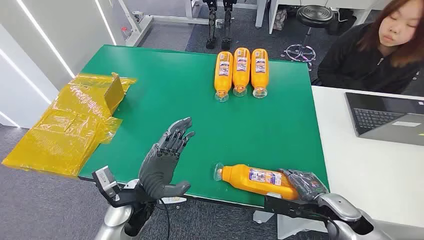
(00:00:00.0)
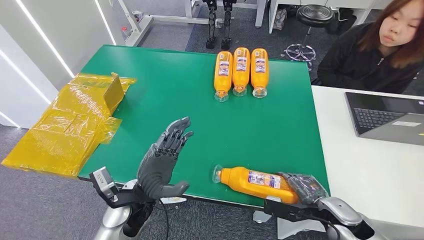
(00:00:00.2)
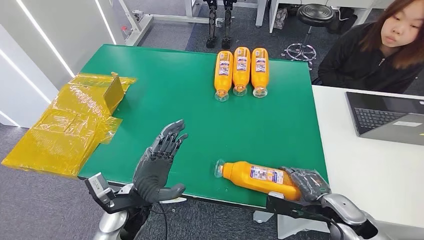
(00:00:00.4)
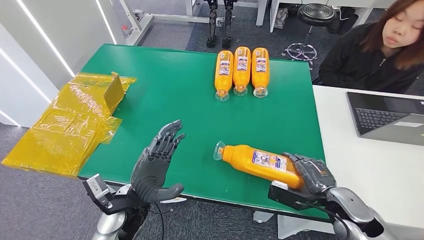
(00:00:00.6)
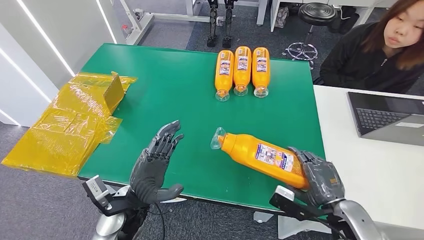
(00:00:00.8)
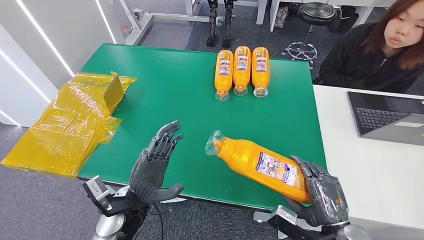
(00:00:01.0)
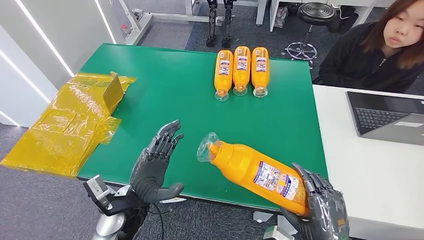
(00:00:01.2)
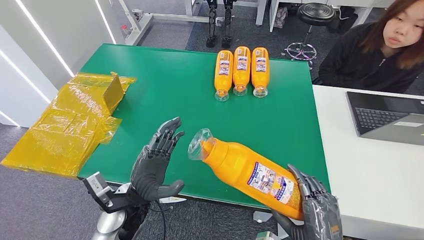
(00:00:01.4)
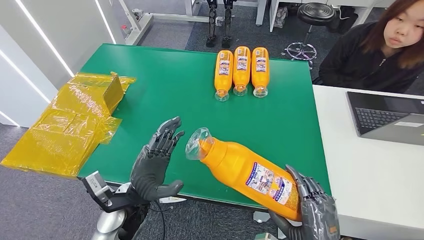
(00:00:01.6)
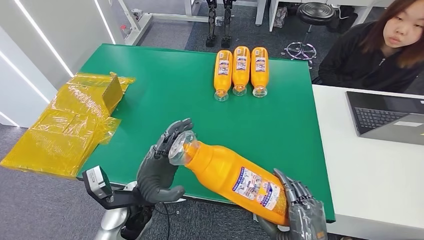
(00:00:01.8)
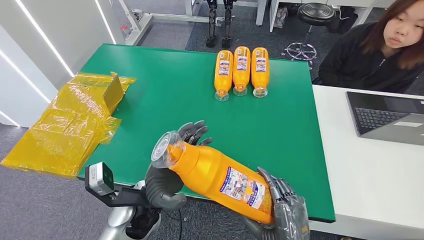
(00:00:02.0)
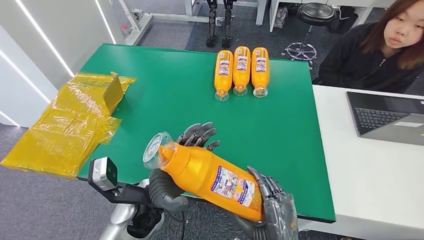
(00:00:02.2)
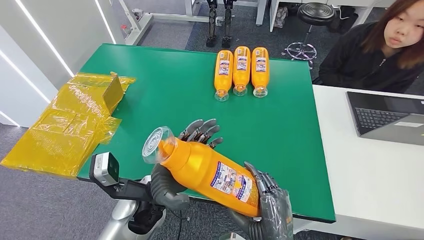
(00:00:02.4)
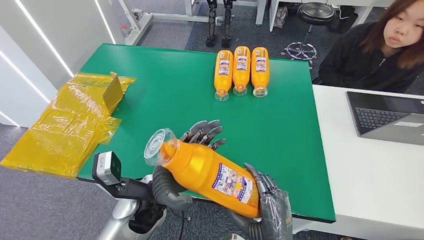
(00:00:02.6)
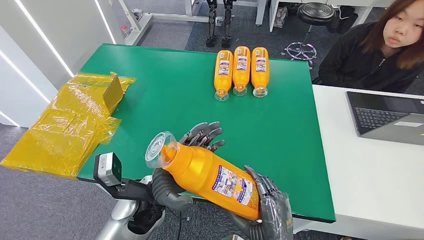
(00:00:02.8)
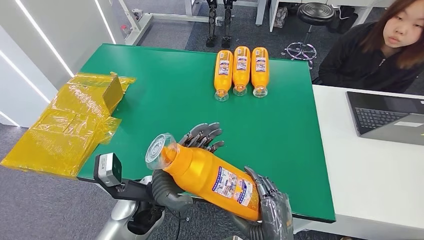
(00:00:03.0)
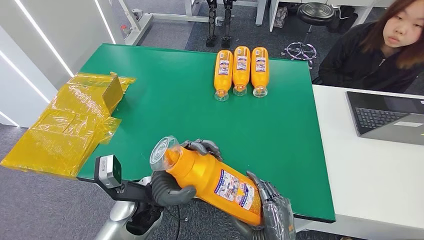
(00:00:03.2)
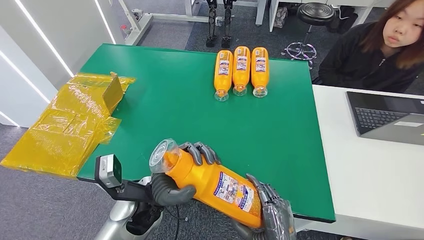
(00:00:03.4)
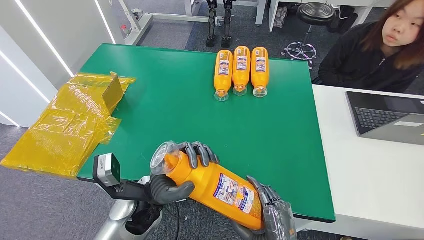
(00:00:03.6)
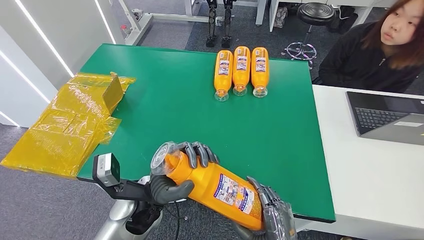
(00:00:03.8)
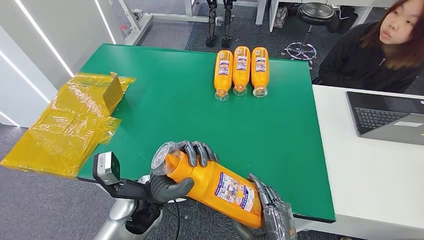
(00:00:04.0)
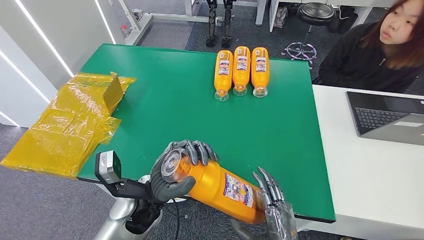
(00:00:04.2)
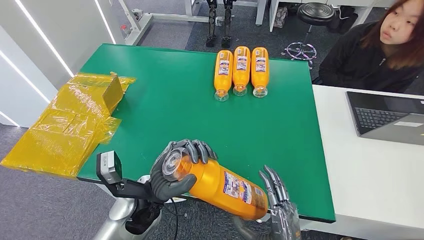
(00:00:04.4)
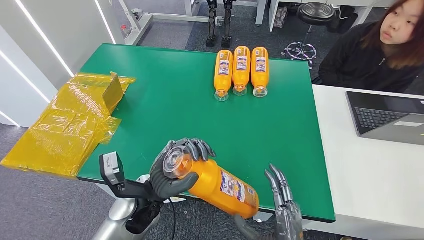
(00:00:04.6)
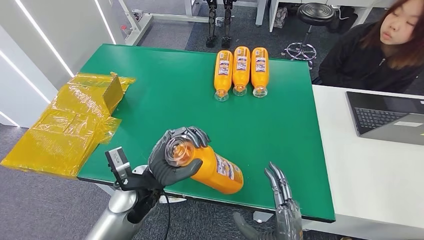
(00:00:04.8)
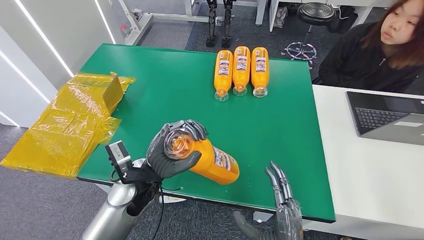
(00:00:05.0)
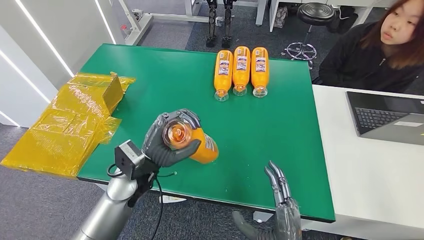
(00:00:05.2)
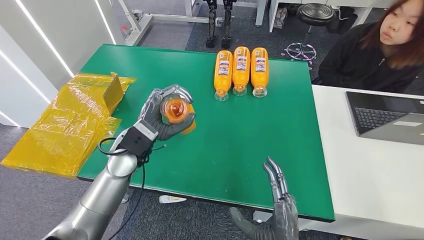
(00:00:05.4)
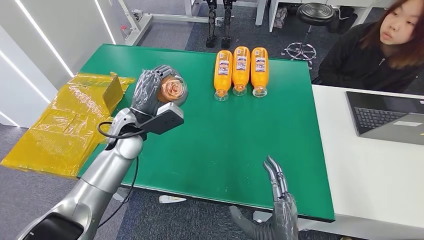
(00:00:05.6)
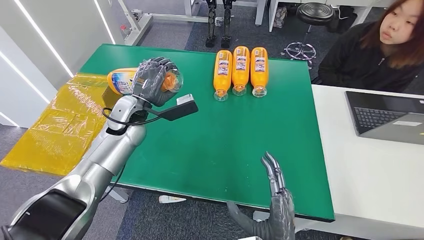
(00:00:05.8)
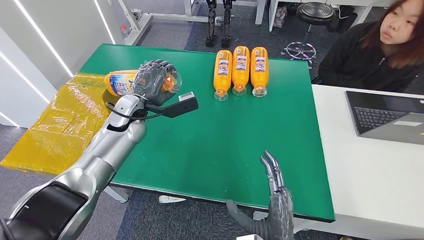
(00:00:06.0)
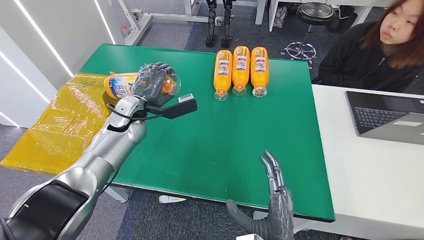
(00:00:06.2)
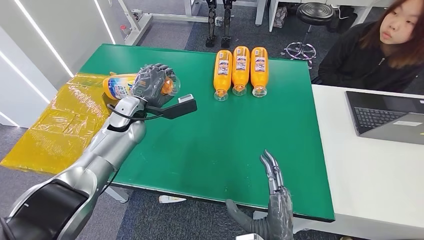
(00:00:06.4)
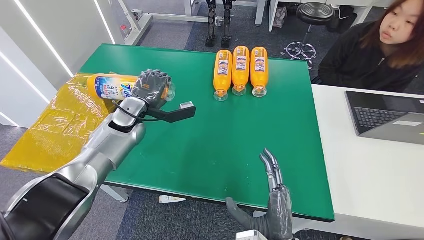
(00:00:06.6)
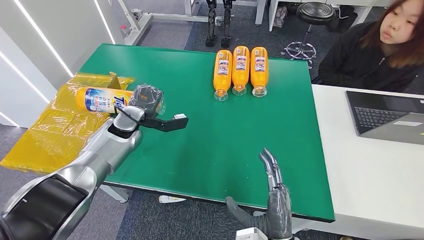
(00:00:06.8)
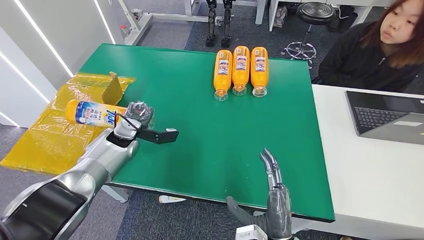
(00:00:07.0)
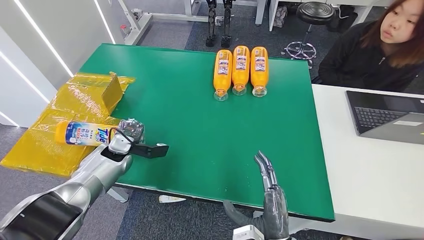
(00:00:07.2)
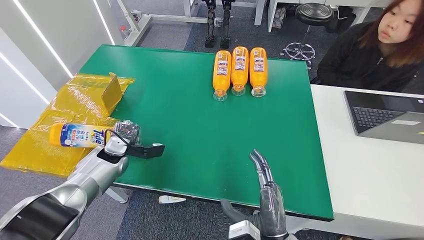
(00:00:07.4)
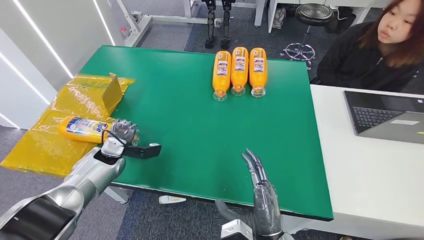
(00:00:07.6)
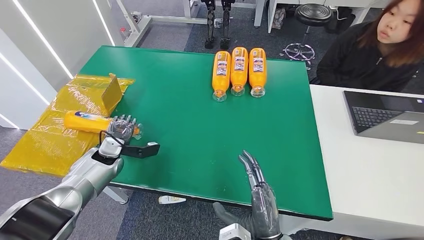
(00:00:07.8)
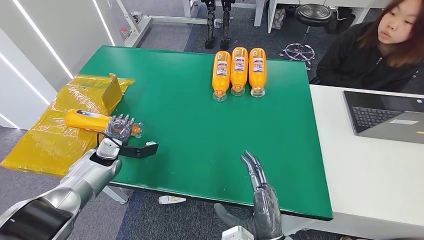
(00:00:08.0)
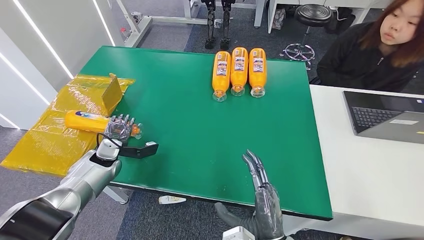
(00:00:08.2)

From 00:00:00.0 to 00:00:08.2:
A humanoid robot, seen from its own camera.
Step, from 00:00:00.0 to 00:00:02.6: Pick up the bottle from the table.
Step, from 00:00:02.8 to 00:00:08.2: Turn the bottle to the front side.
From 00:00:01.6 to 00:00:03.2: The left hand moves some 5 cm. The right hand shifts roughly 5 cm to the left.
From 00:00:05.0 to 00:00:06.6: The left hand travels forward and to the left by approximately 20 cm.
From 00:00:06.6 to 00:00:08.2: The left hand is displaced downward, to the left and backward by approximately 15 cm.
